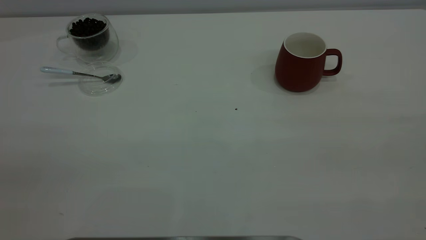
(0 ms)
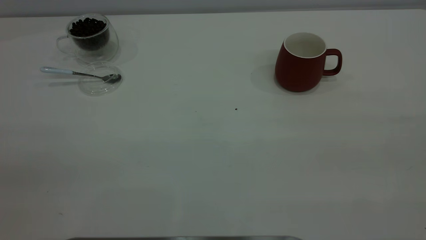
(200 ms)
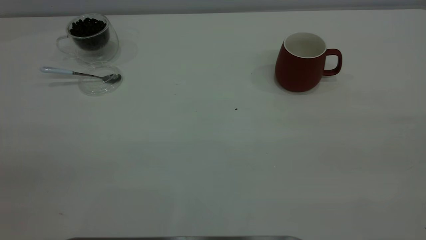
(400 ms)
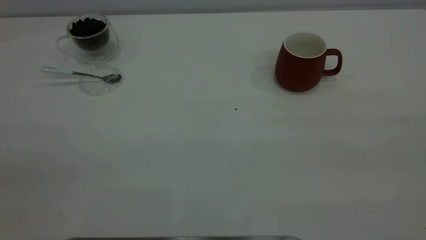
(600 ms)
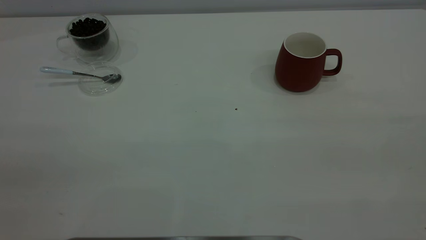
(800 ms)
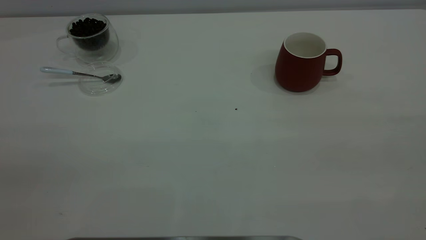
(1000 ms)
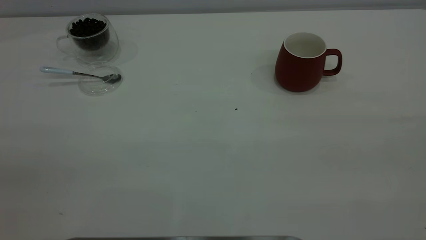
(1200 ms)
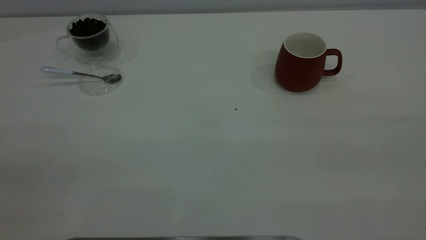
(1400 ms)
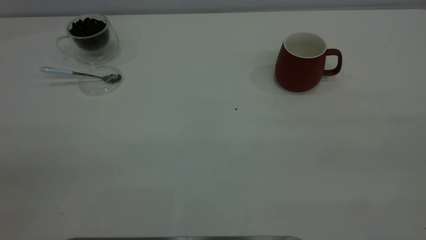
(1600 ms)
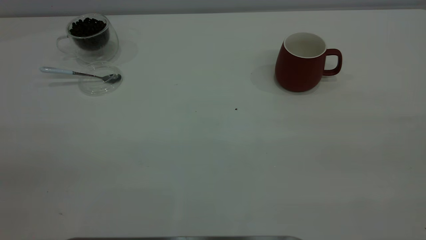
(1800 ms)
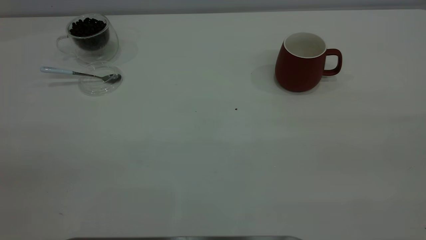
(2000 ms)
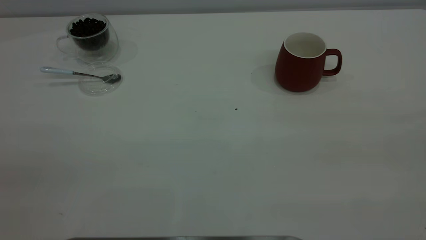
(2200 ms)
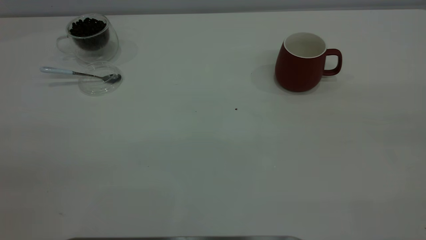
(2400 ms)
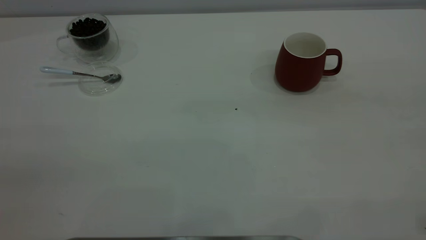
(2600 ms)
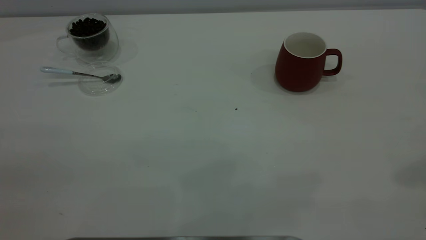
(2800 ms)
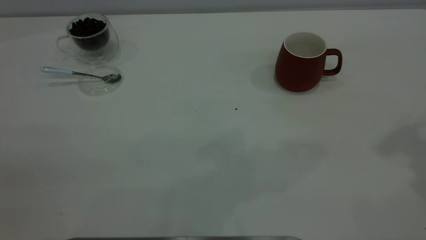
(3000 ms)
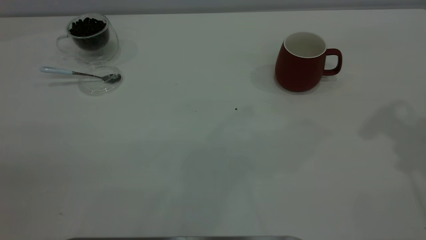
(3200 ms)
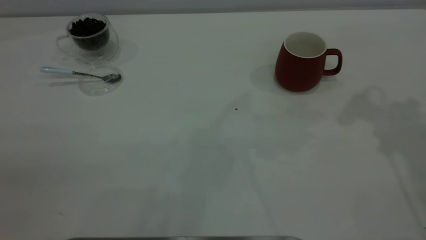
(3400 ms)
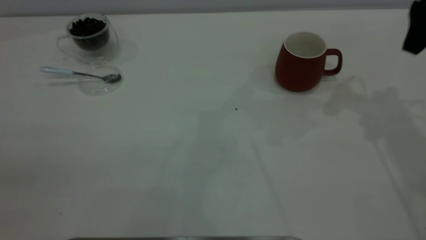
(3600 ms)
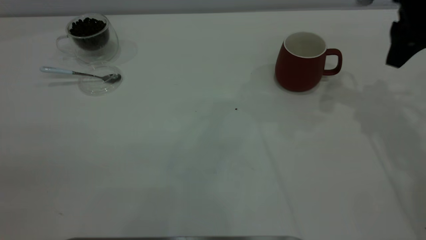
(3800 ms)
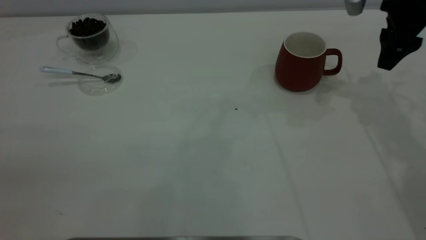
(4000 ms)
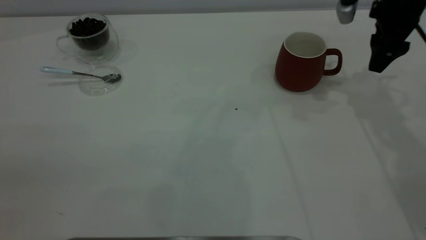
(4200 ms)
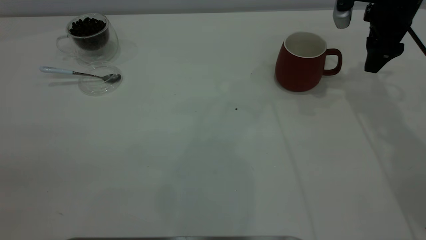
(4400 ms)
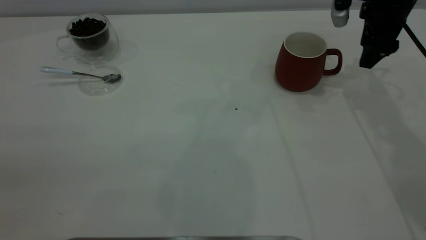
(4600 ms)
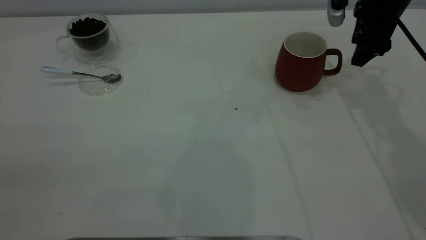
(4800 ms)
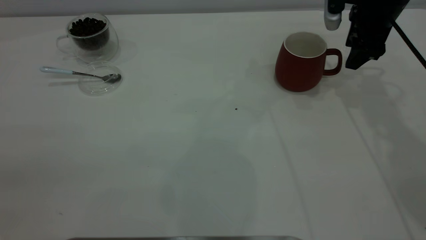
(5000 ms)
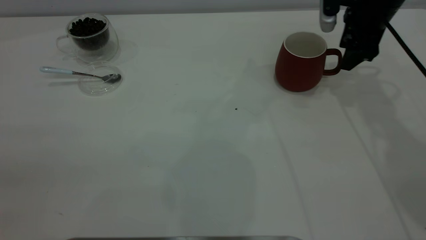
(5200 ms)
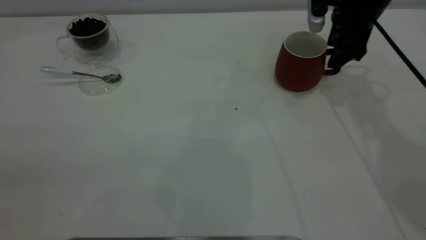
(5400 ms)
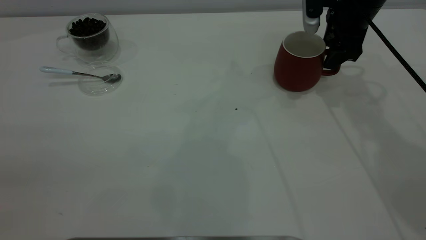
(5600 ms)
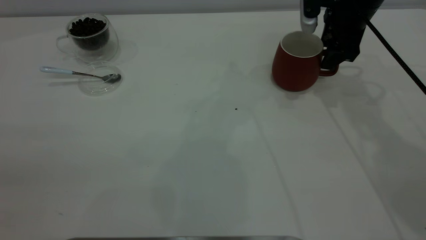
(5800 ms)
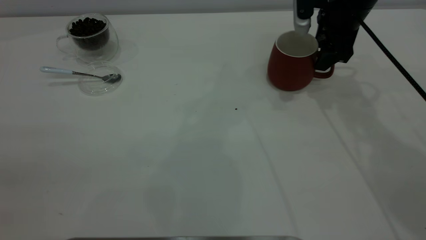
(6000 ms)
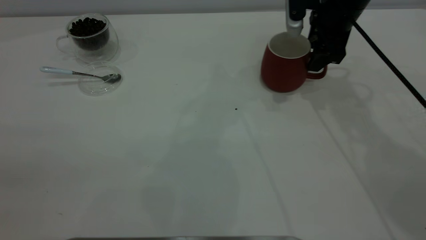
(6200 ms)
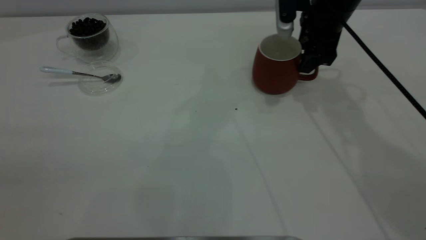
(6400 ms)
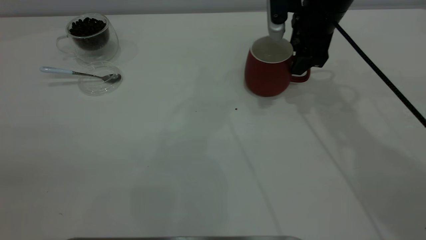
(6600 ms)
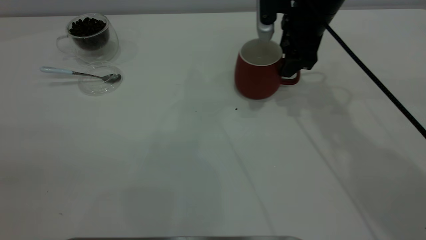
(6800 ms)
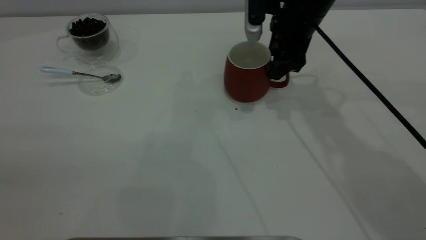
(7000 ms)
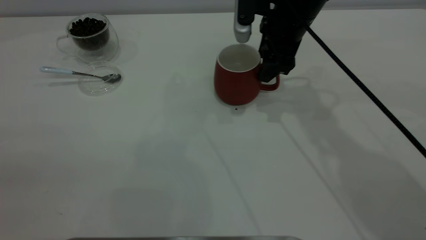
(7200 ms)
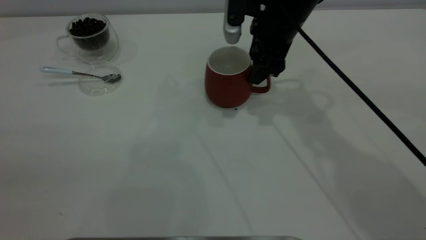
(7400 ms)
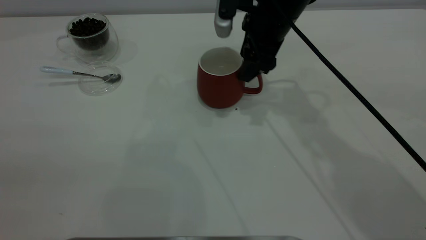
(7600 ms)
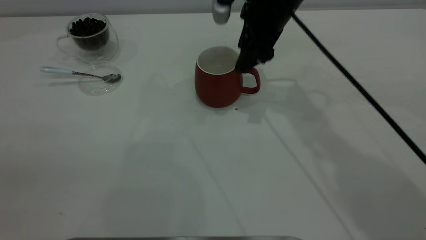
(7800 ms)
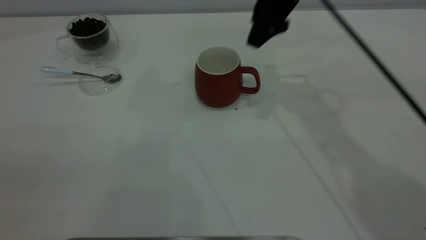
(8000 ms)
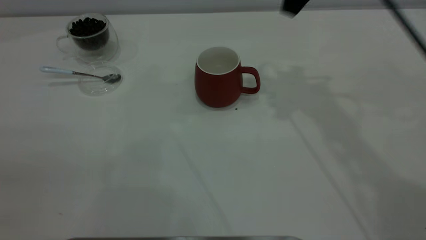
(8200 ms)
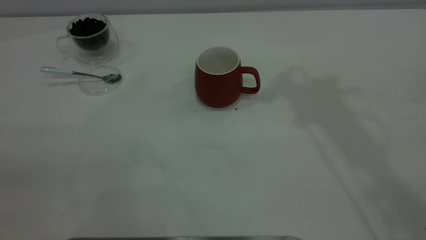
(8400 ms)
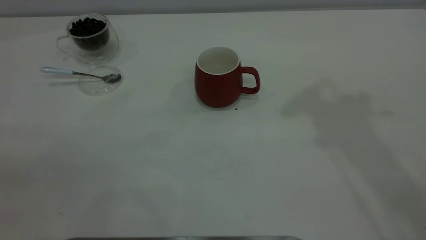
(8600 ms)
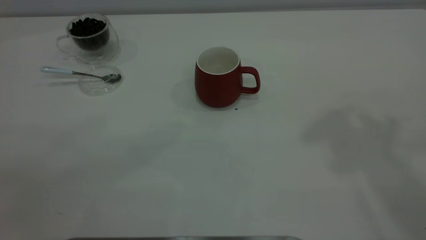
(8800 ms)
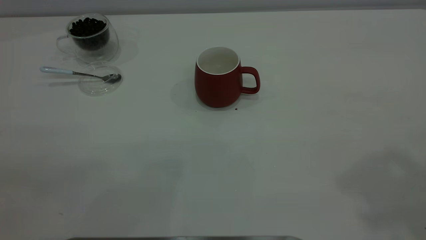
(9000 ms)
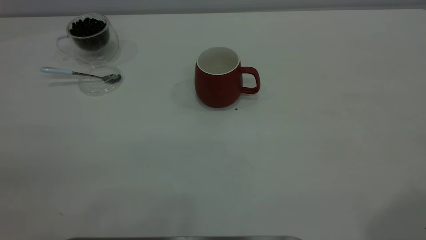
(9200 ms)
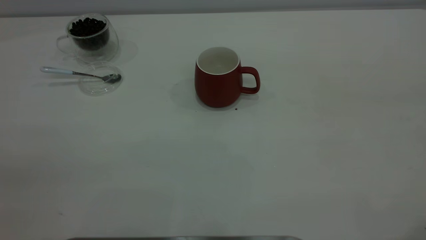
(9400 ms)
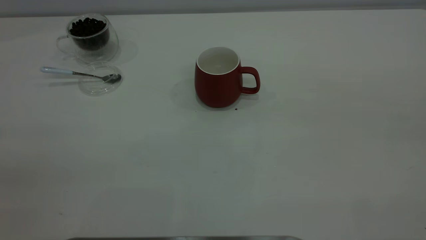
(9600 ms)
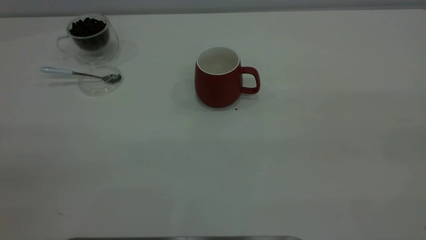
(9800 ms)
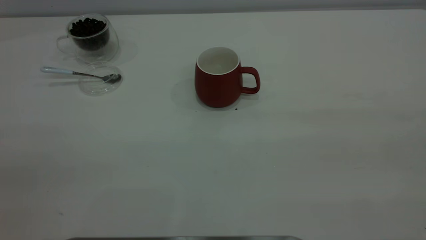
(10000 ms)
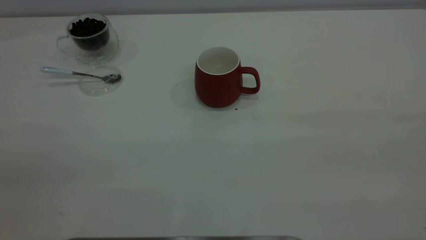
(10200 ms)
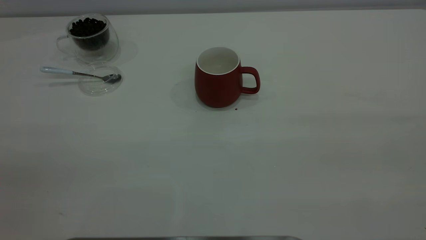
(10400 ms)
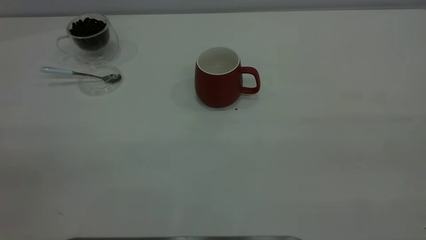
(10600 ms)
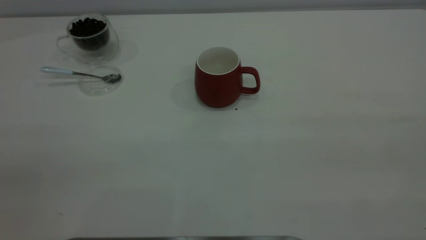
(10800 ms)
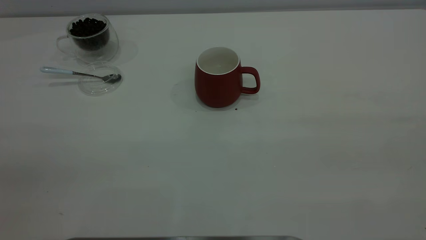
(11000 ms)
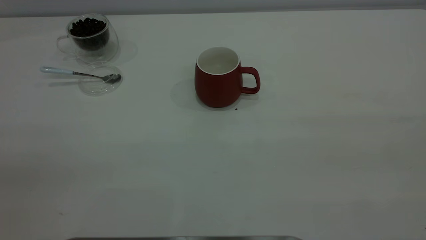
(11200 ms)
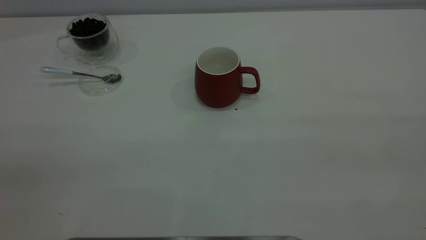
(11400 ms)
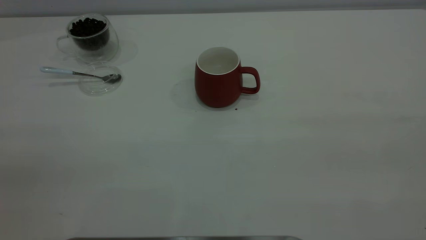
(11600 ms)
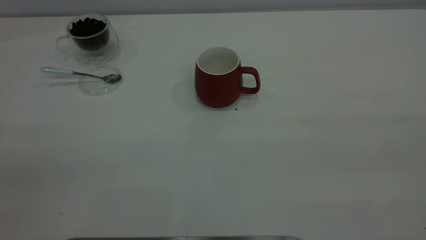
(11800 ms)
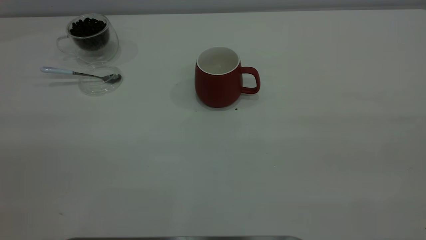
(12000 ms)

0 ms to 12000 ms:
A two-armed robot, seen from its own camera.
Task of the whole recording: the right gripper place the red cup in the center of the table, the left gripper take the blue spoon from the cup lid and scoop out the coffee beans from the coffee cup and put them into the red cup, the left gripper put the spoon back into the cup lid.
Step, 0 ms to 7800 ms: Move the cup to the center of view.
0 ms to 1600 ms: The two grippers keep their place.
3000 ms to 4400 ms: The right gripper moves downward and forward, approximately 25 cm.
4400 ms to 6000 ms: The right gripper heads to the left, covering about 5 cm.
6000 ms to 7600 ms: The right gripper shifts some 10 cm to the left.
7600 ms to 9000 ms: The right gripper goes roughly 50 cm upward, backward and to the right.

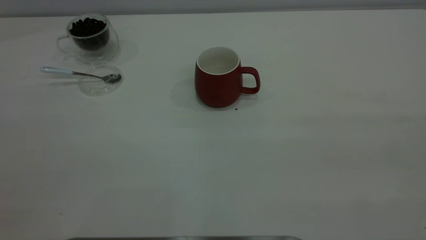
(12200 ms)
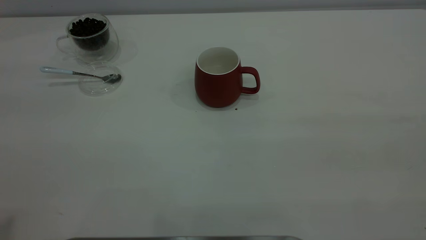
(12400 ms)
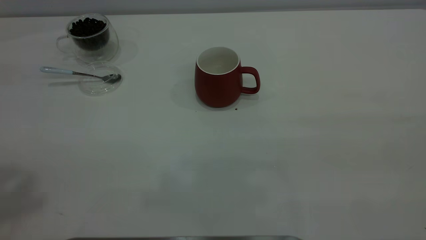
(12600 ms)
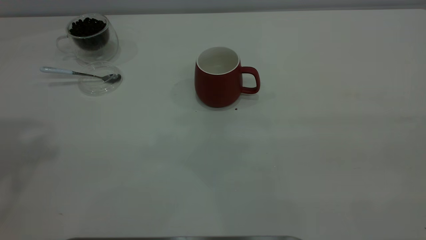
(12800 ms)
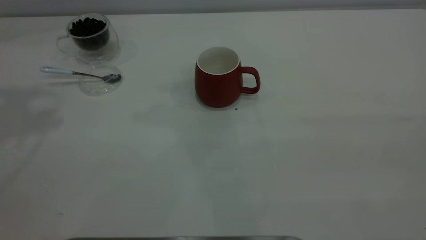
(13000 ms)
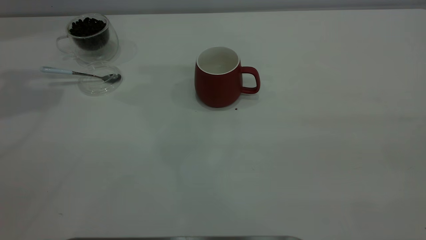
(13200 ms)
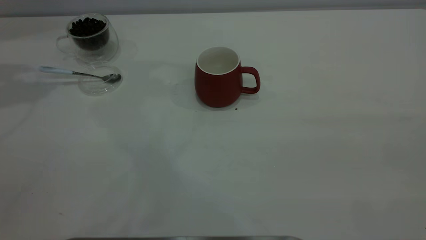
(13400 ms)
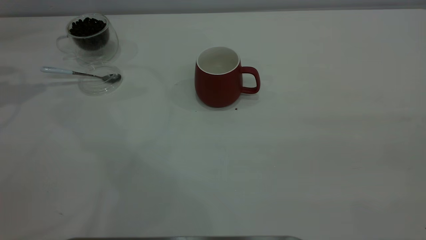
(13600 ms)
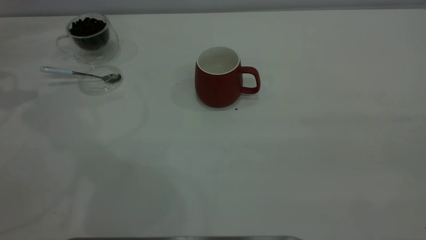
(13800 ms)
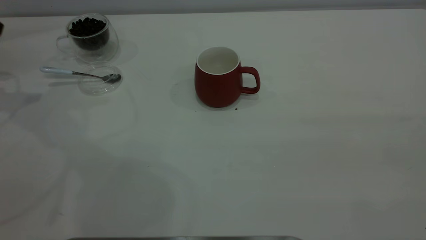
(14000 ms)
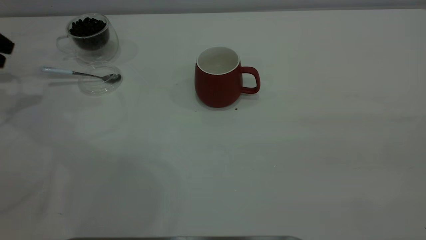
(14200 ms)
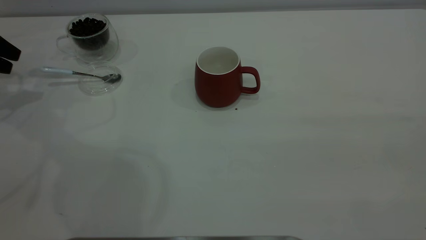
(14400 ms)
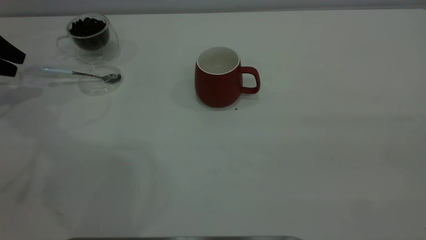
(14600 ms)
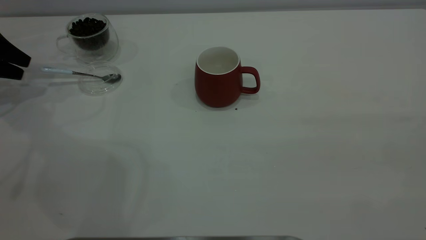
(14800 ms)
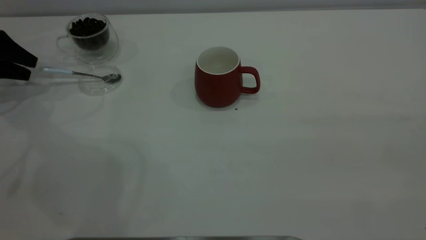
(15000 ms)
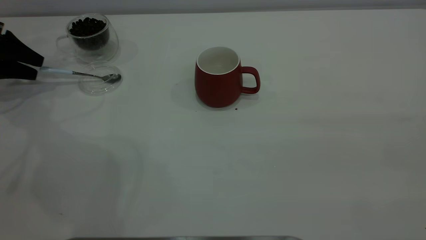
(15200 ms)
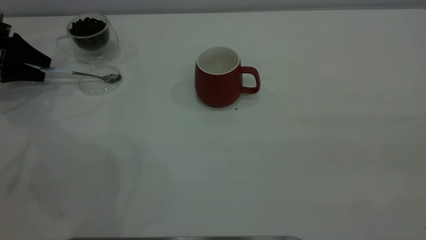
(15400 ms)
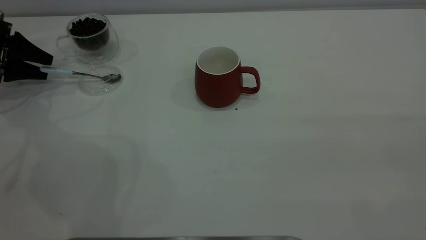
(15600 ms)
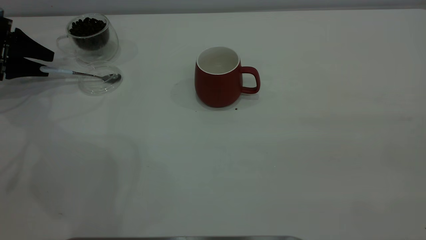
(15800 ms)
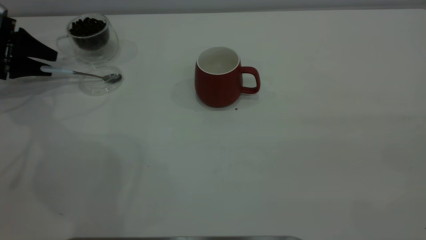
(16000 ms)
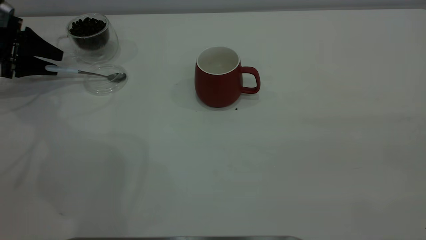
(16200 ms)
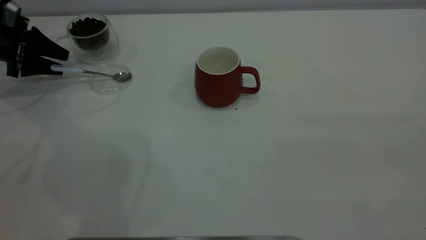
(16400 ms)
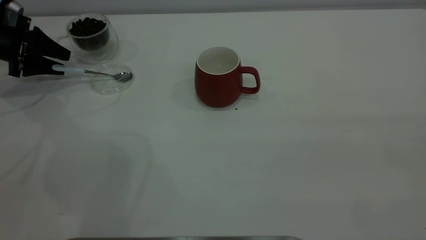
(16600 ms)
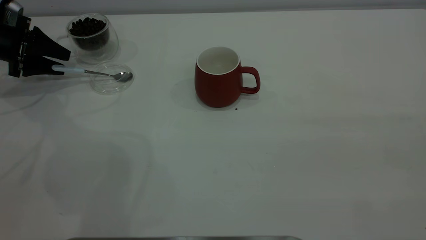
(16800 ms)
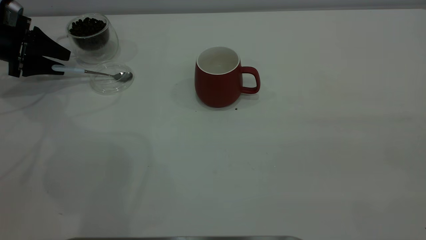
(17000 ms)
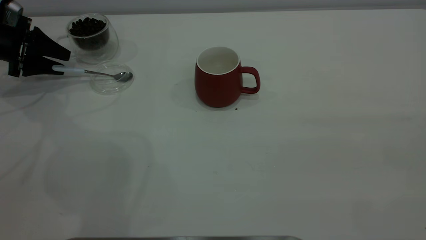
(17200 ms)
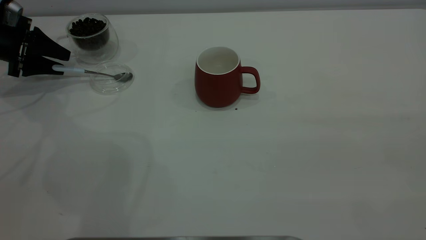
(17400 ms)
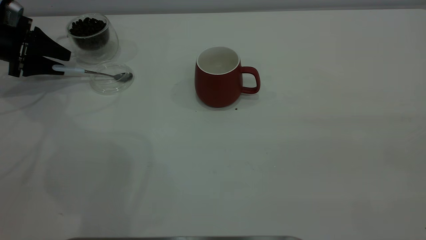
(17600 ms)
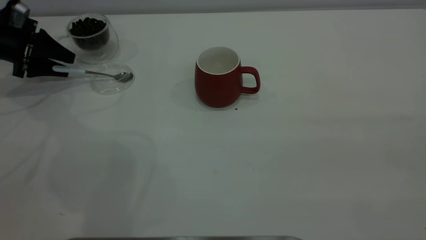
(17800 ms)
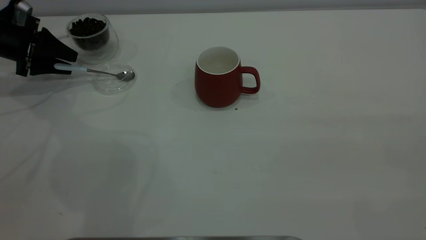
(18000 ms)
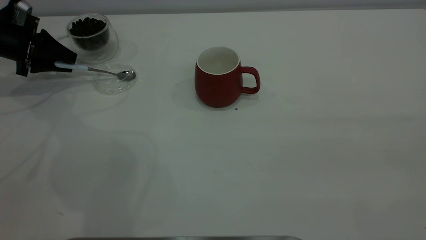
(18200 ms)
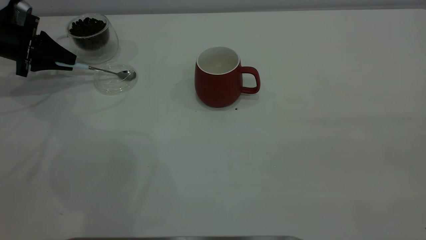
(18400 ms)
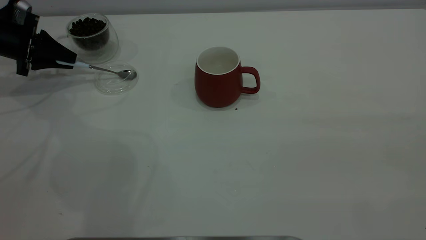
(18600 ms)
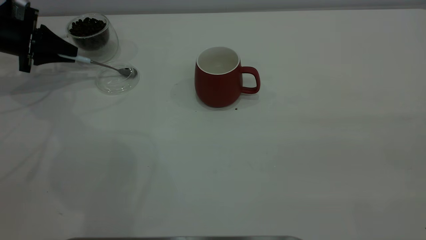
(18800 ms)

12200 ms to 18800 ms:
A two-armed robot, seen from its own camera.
Task of the whole recording: the right gripper place the red cup in the center of the table, the left gripper take the blue spoon from the cup lid and scoop out the coffee beans from the coffee cup and put them into the red cup, the left gripper put the spoon back into the cup lid.
13800 ms to 15400 ms: The left gripper travels downward by some 15 cm.
15400 ms to 17200 ms: The grippers move only a little.
17200 ms to 18800 ms: The left gripper closes its fingers.
